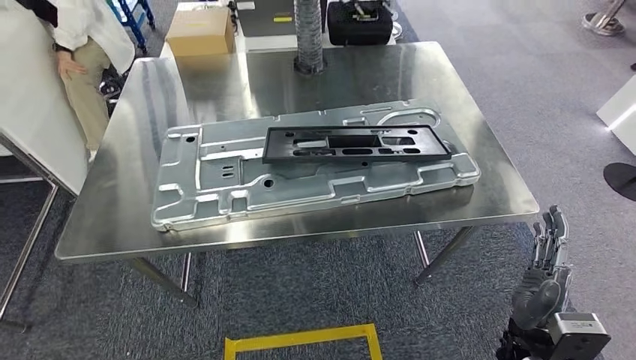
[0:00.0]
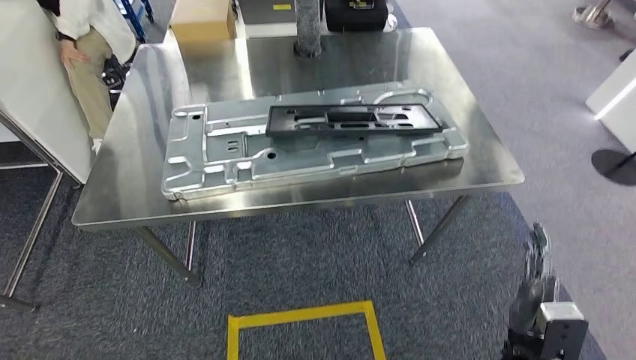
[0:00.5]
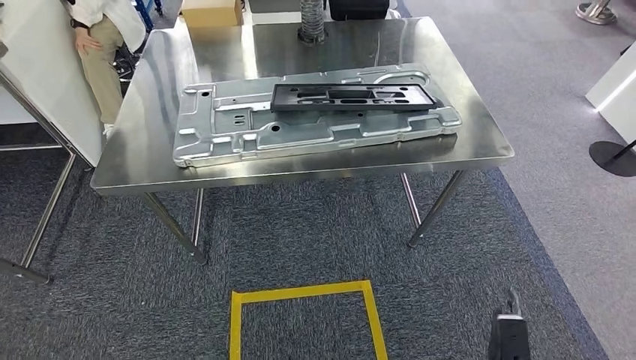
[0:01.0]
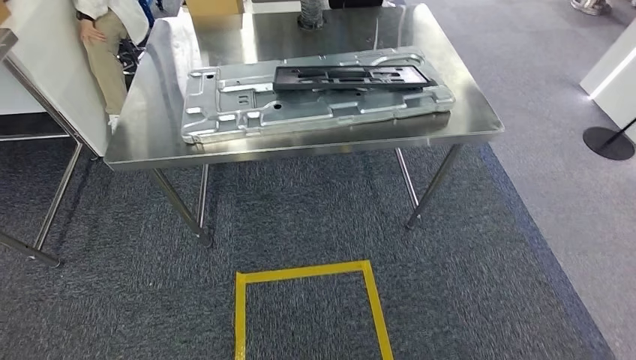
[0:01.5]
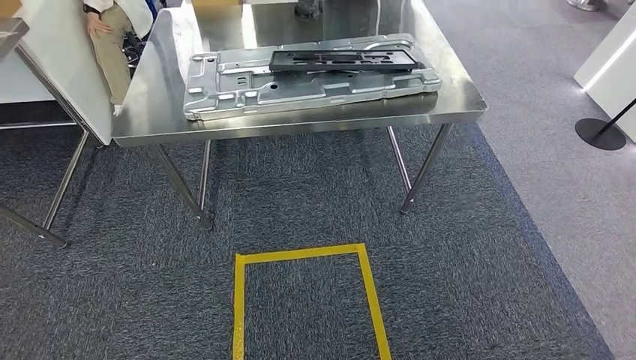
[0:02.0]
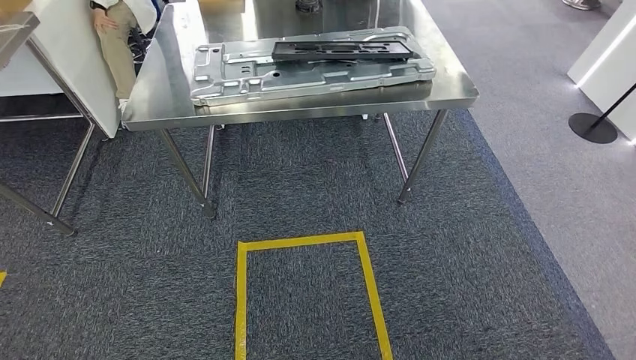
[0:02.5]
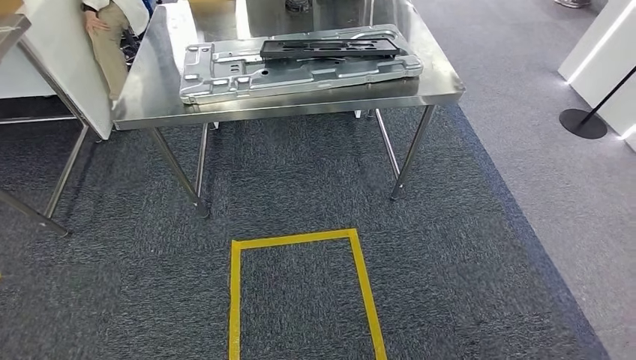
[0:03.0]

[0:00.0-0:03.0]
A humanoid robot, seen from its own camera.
Step, 0:00.5 to 0:03.0: Return to the initial position at the workbench.

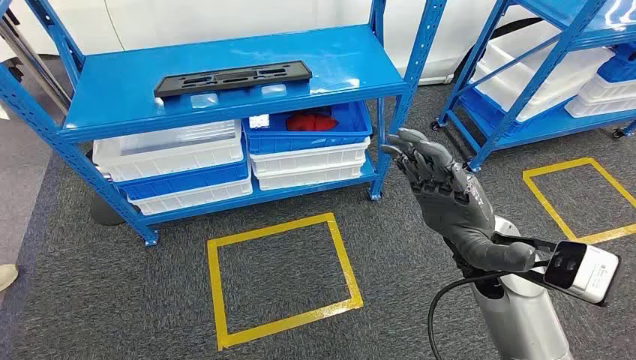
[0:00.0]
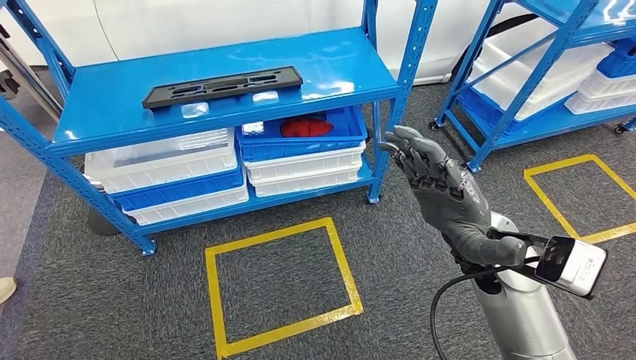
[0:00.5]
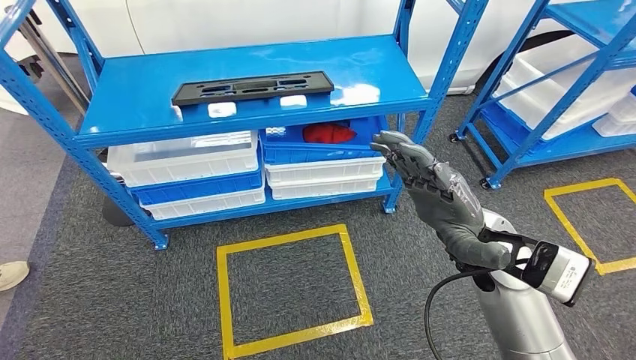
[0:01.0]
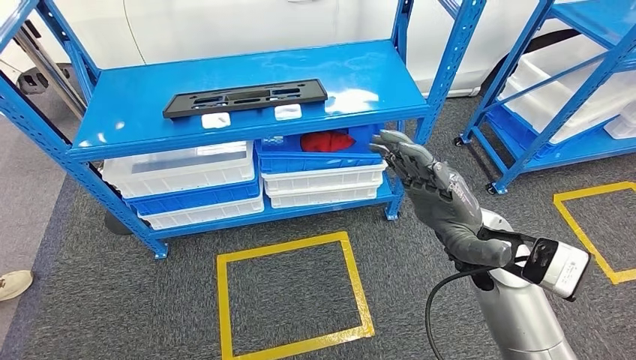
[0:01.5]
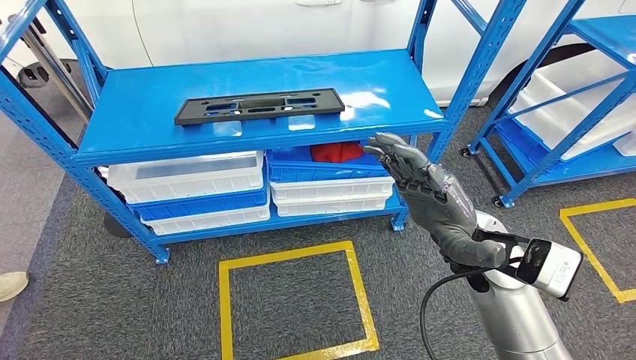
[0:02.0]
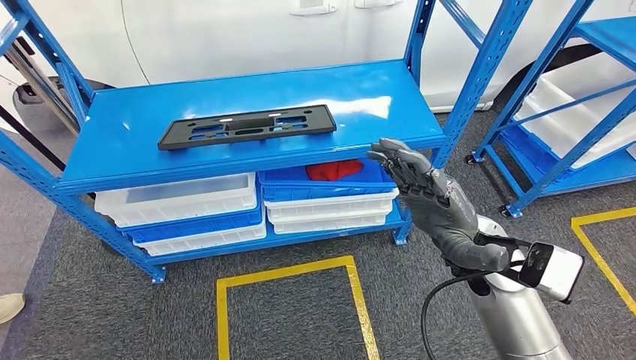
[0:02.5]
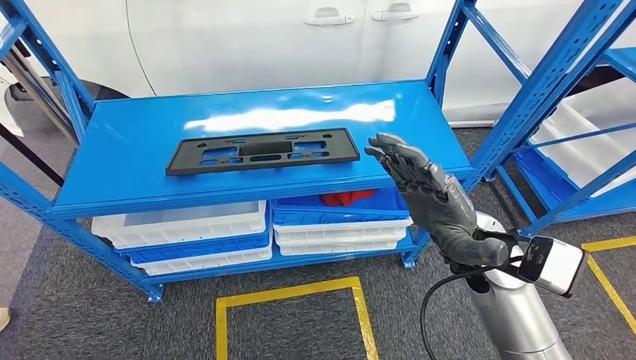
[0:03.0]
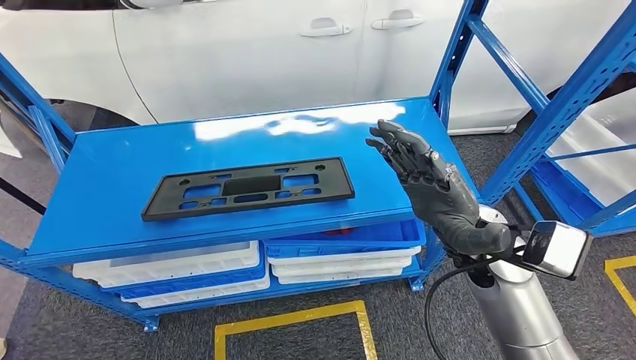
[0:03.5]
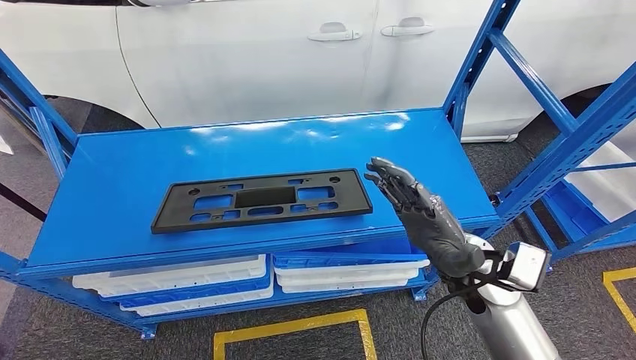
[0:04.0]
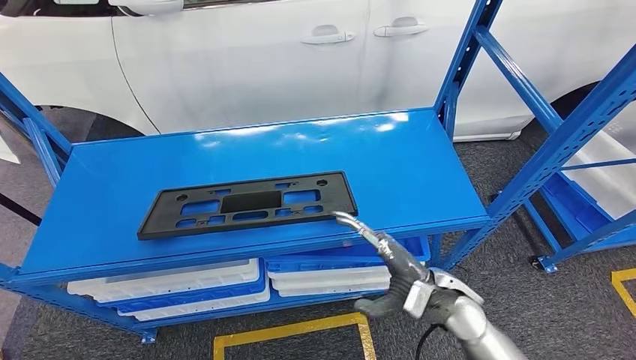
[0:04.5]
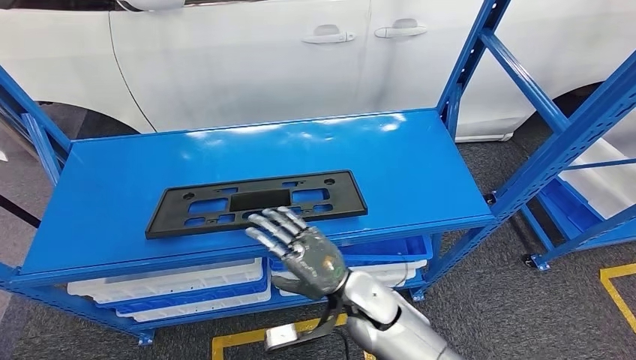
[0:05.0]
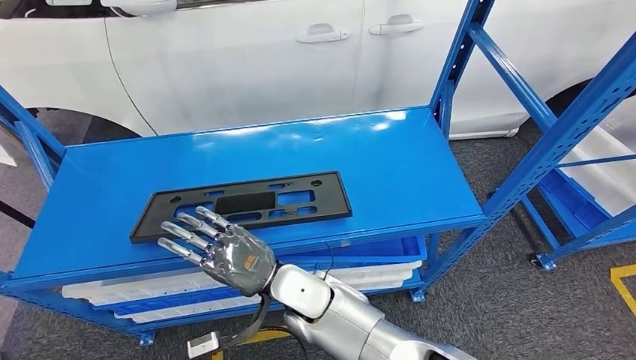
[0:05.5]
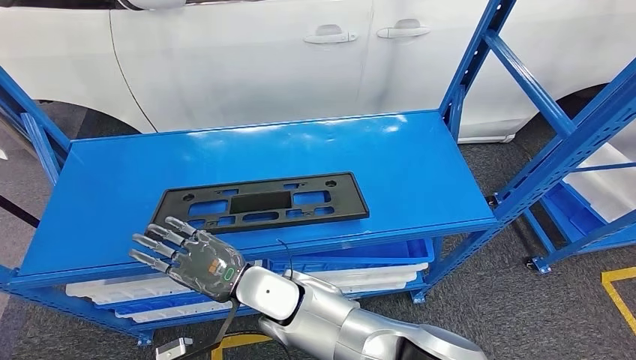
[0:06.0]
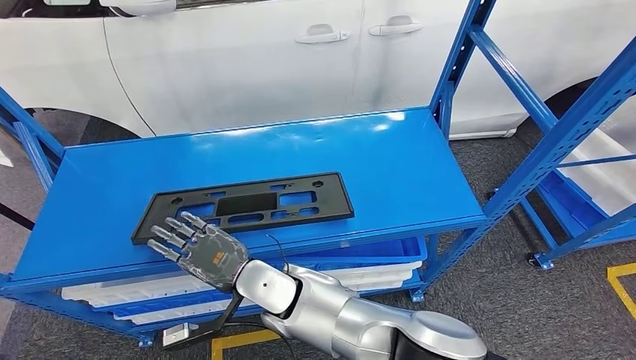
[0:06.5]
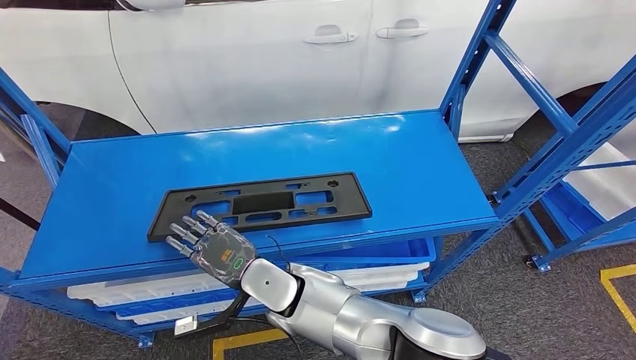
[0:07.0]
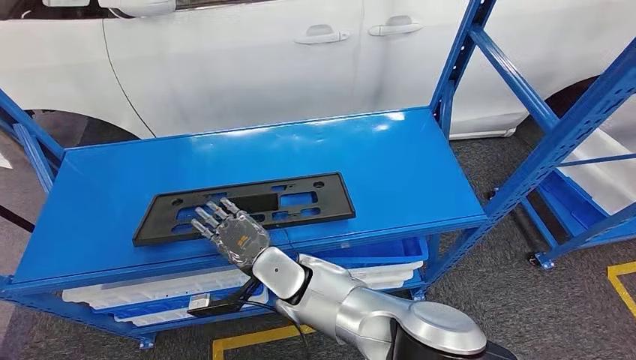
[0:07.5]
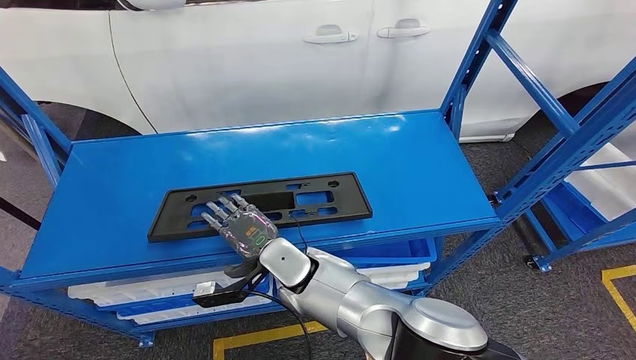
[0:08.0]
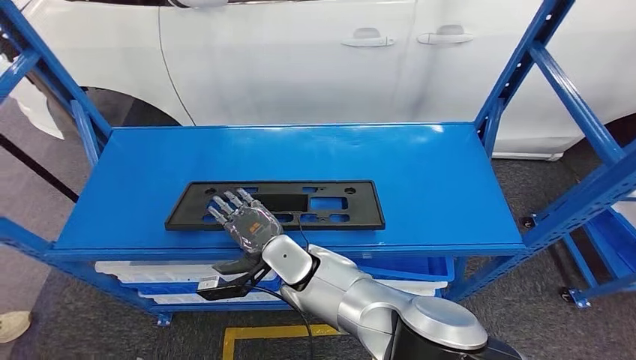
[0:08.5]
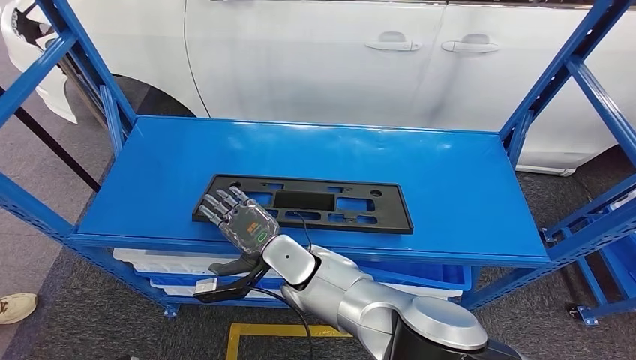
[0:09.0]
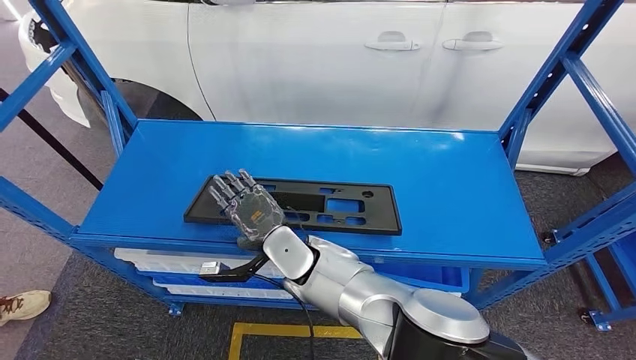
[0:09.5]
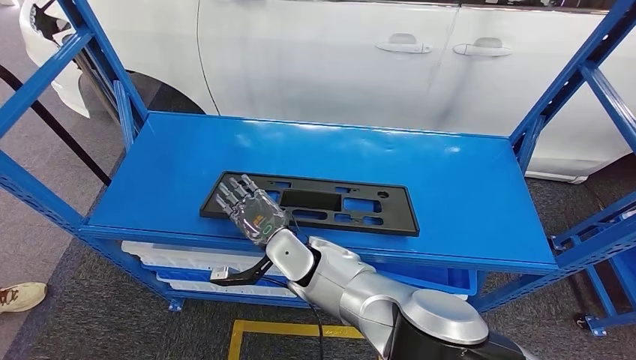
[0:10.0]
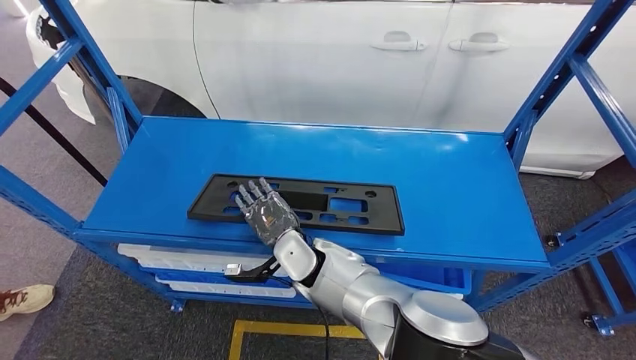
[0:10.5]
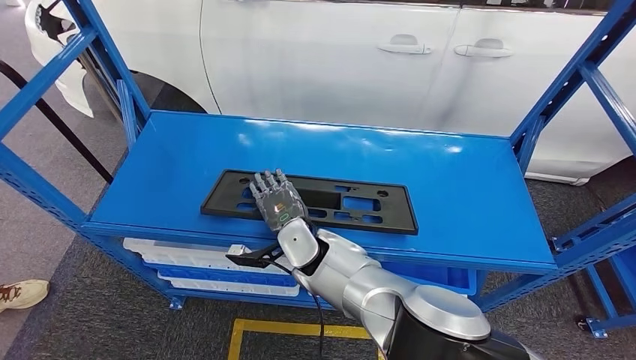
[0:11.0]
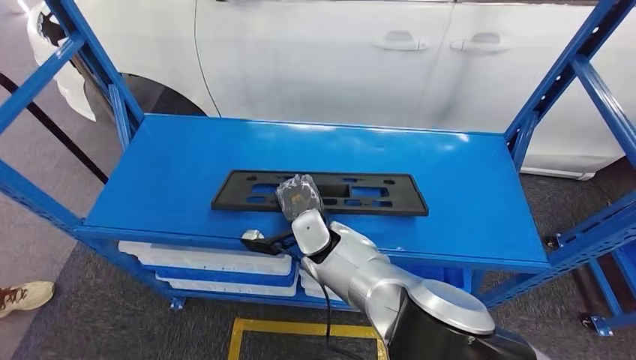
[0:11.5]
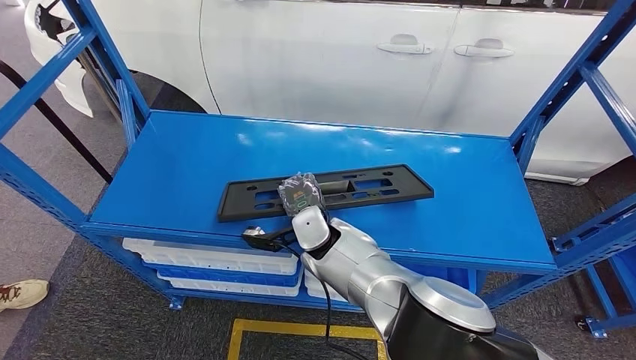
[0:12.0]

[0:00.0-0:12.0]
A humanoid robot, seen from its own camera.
0:06.0 to 0:08.0: The right hand moves approximately 5 cm.
0:10.0 to 0:12.0: The right hand changes place by about 5 cm.

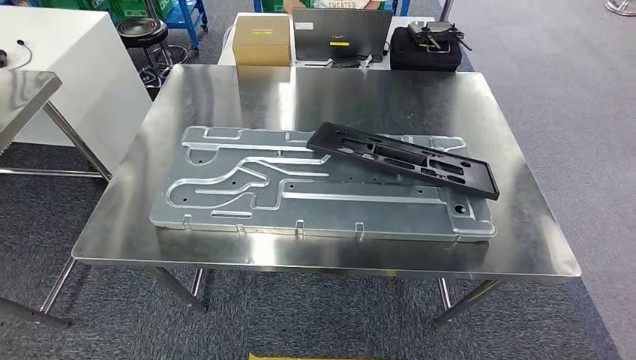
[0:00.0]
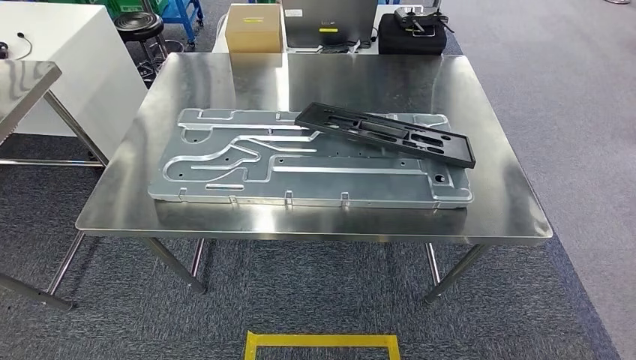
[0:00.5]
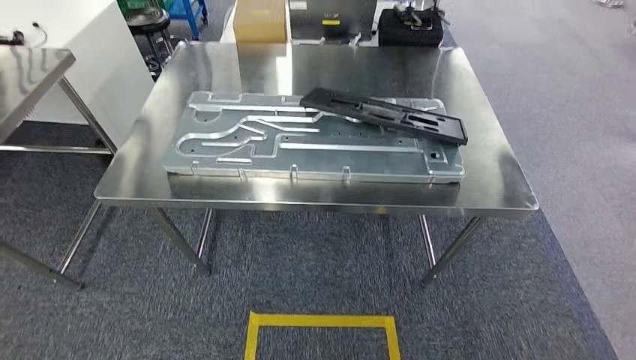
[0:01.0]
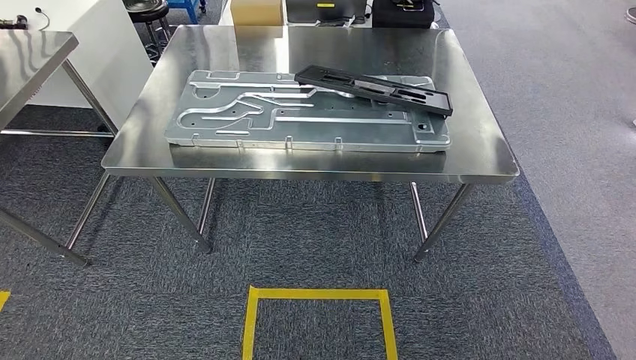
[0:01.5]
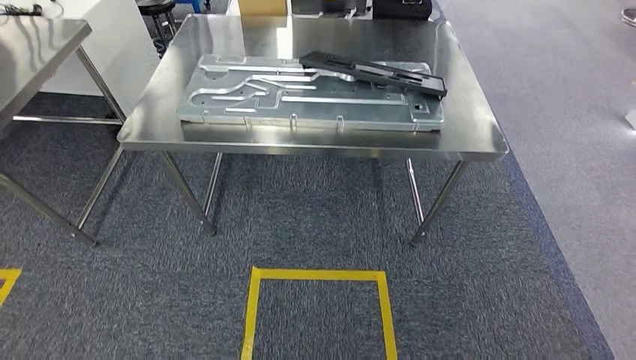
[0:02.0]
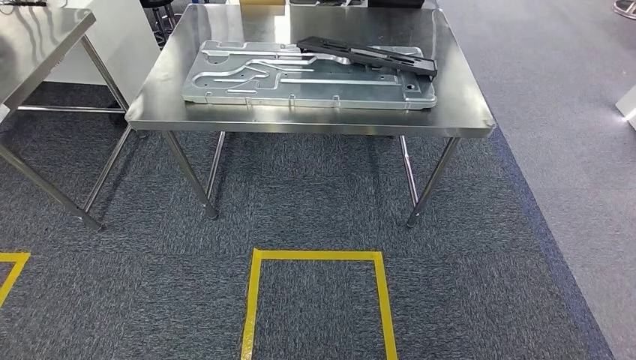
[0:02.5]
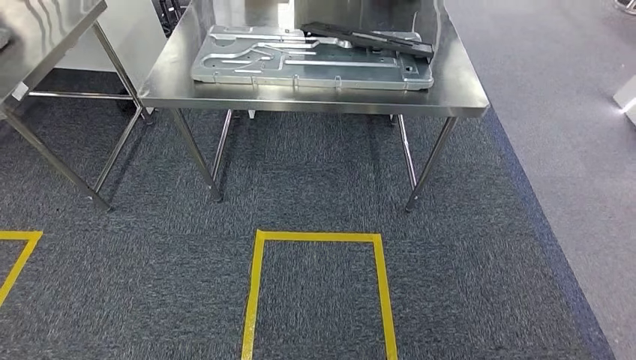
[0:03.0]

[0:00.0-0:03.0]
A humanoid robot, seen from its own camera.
Step, 0:00.0 to 0:03.0: Return to the initial position at the shelf.
